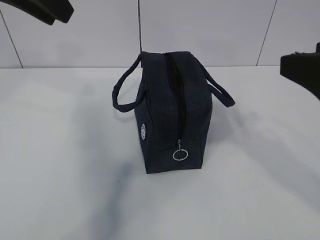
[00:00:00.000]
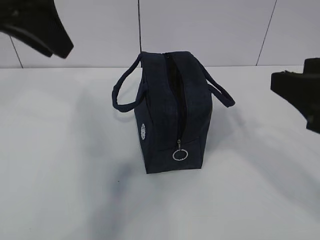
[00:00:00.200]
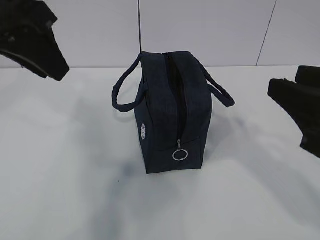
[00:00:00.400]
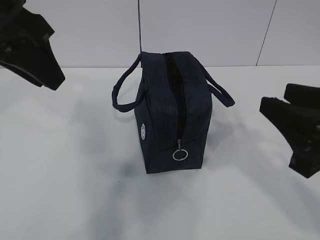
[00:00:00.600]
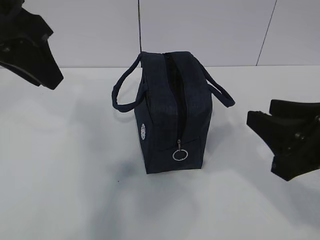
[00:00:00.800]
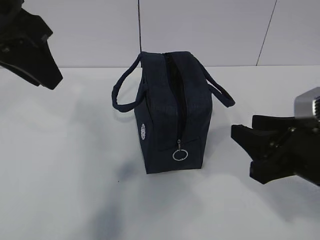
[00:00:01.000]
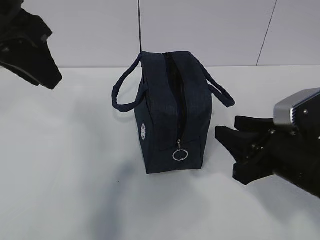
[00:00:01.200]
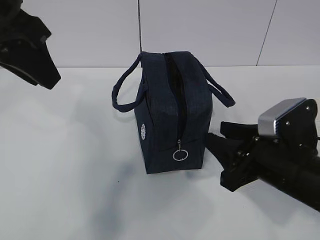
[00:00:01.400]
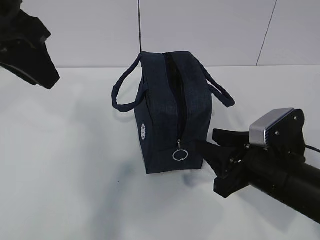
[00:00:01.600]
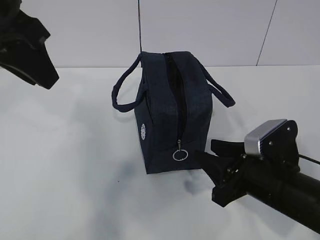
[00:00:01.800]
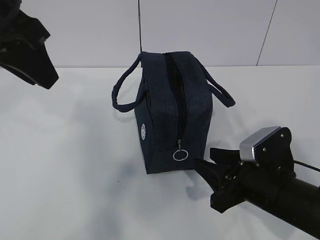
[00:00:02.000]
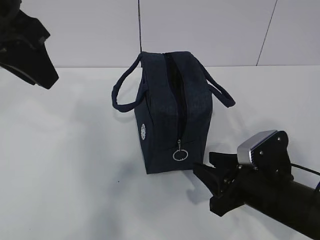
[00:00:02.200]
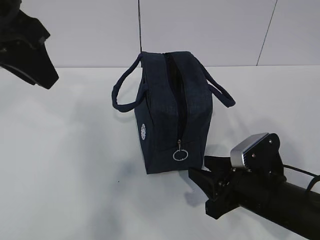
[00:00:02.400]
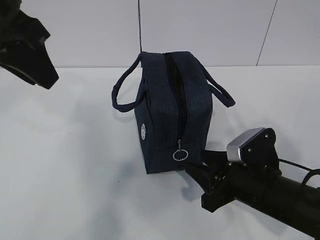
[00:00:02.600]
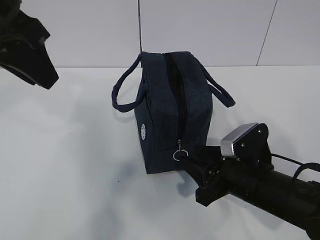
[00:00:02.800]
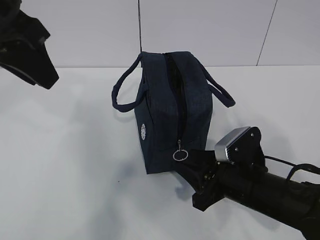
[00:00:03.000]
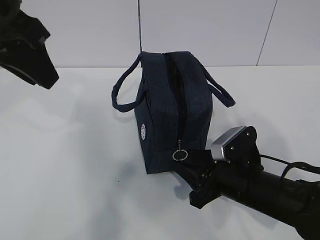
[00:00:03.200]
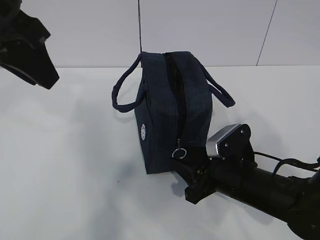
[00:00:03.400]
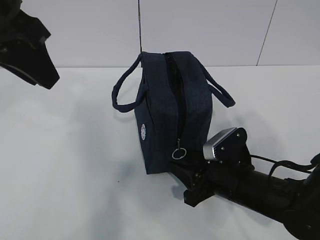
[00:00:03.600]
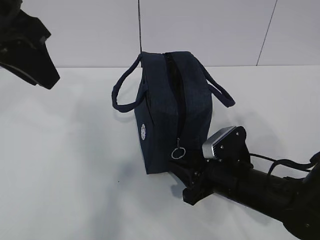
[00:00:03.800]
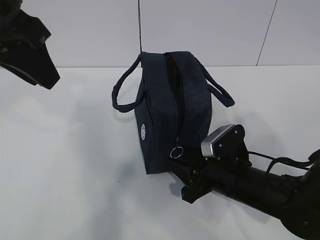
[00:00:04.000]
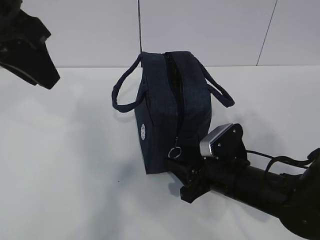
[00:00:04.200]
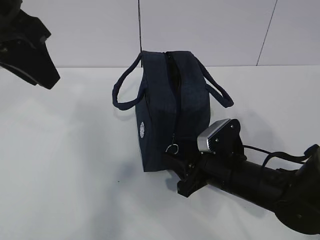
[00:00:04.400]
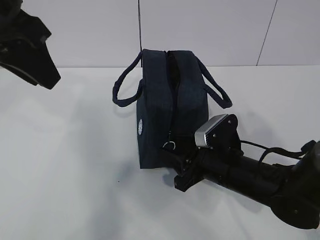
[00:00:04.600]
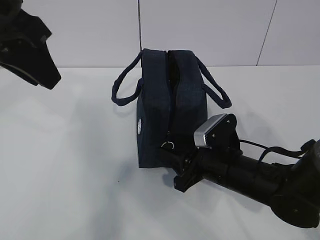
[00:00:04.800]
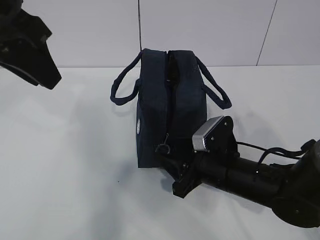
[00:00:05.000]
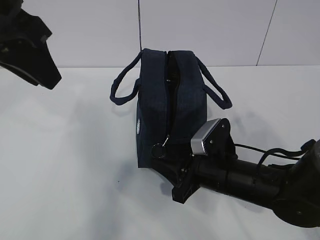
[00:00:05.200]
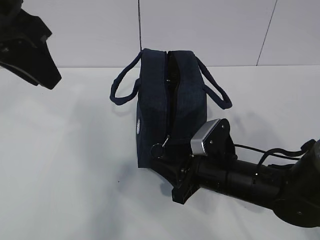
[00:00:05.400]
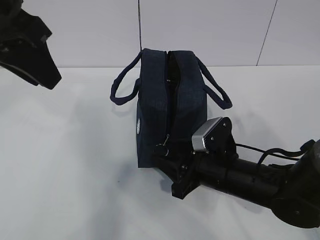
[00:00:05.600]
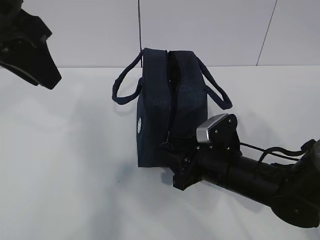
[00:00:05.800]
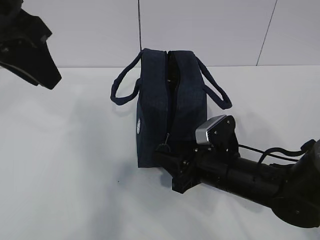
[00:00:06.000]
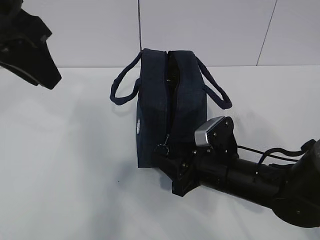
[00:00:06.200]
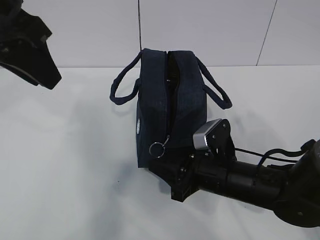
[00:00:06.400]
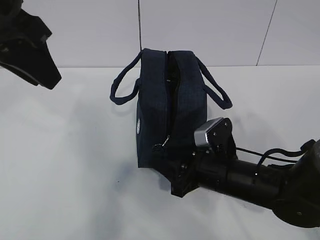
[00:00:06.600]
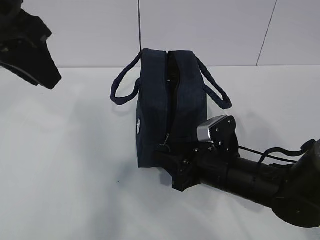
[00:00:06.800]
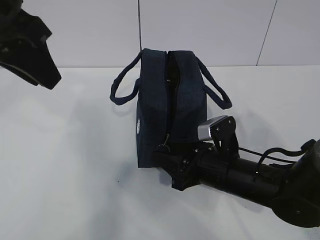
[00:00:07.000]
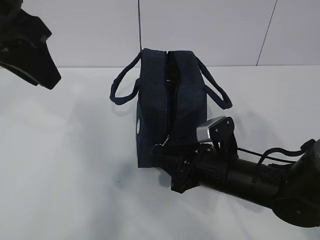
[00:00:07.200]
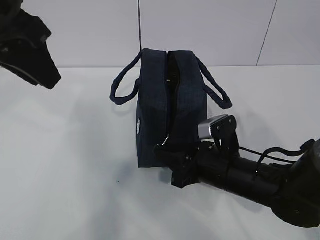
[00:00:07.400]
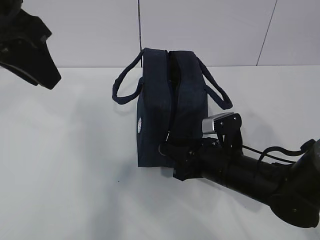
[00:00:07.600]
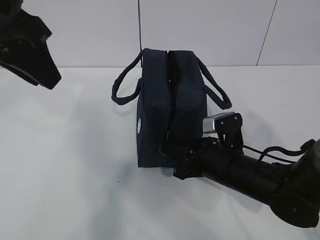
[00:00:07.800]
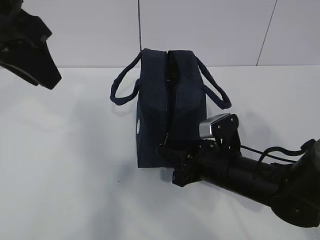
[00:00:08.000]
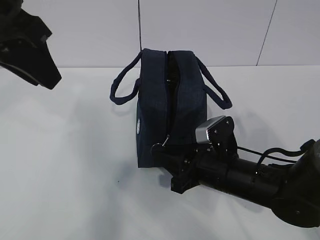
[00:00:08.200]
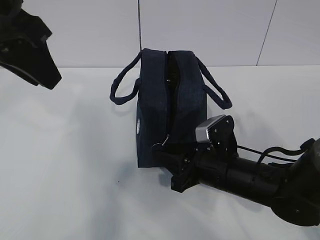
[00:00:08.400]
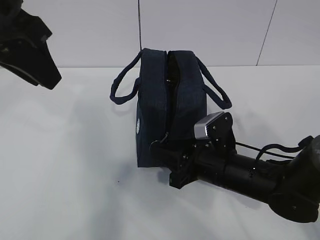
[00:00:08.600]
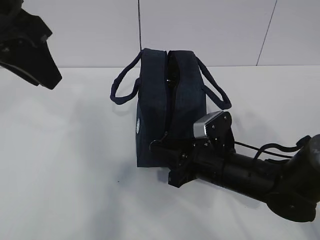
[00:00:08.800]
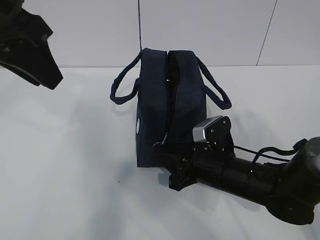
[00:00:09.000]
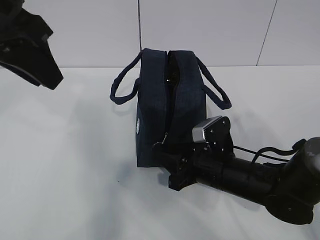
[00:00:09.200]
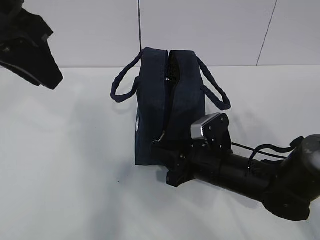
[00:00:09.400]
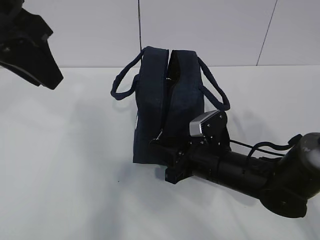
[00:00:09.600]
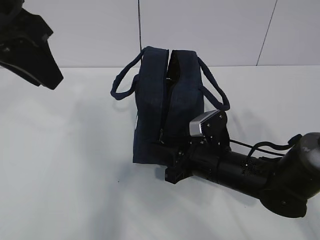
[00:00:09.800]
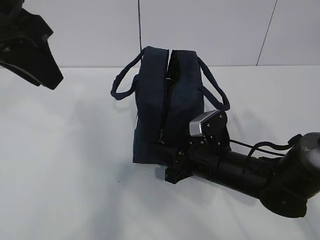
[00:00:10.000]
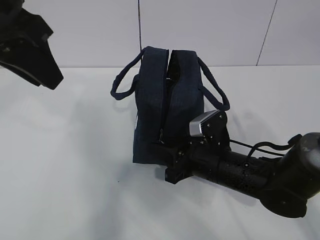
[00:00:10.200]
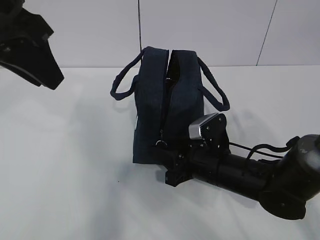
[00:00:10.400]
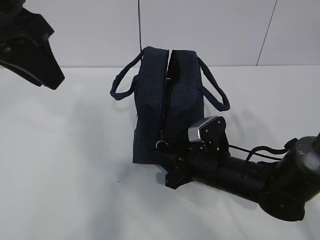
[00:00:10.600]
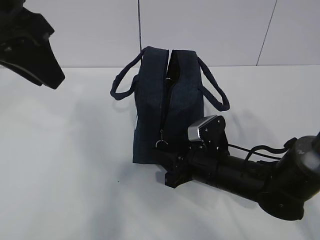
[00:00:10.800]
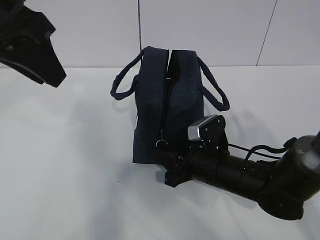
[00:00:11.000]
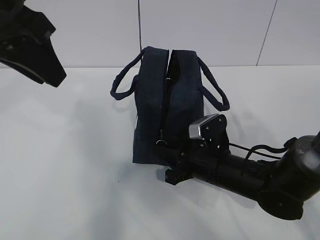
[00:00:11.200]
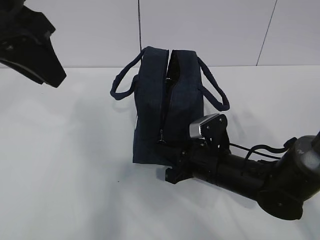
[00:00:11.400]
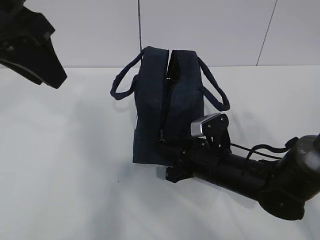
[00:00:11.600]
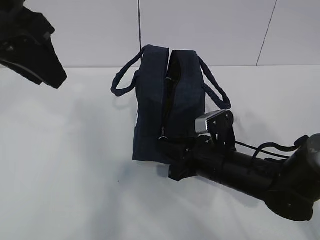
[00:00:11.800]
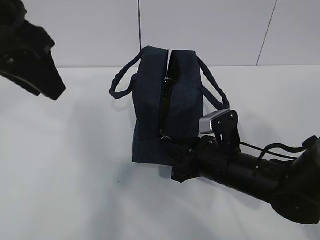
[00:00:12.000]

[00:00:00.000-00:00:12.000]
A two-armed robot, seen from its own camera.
00:00:00.000 to 00:00:01.600: The left gripper goes approximately 5 cm downward, while the right gripper is displaced downward by approximately 20 cm.
00:00:01.600 to 00:00:03.000: The right gripper moves downward, approximately 5 cm.
00:00:03.000 to 00:00:09.000: There are only small adjustments of the grippers.
00:00:09.000 to 00:00:10.400: Neither gripper changes place.
00:00:10.400 to 00:00:12.000: The right gripper closes.

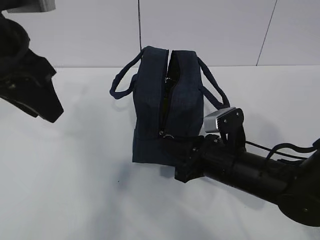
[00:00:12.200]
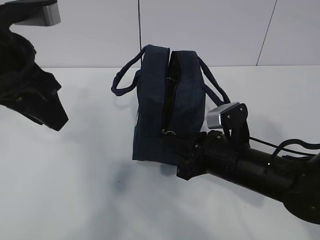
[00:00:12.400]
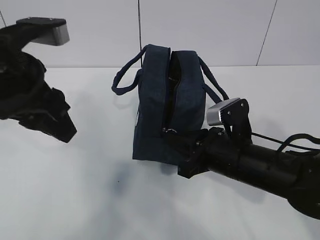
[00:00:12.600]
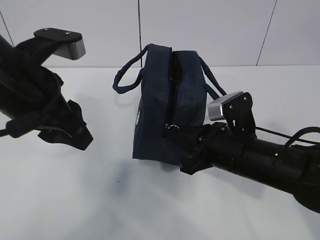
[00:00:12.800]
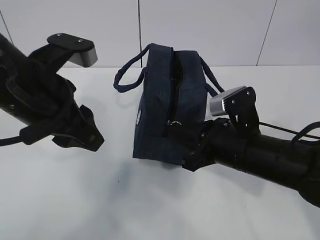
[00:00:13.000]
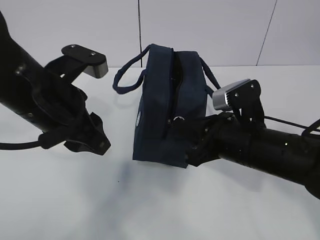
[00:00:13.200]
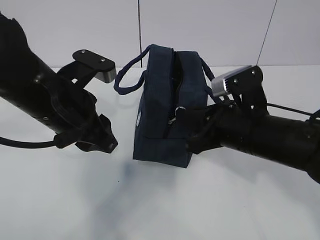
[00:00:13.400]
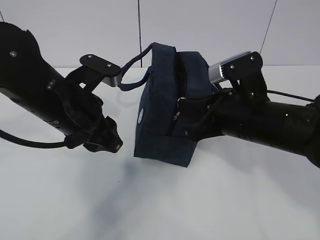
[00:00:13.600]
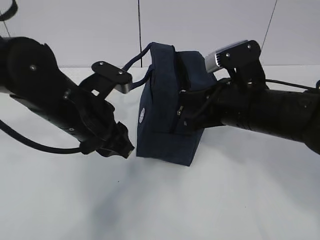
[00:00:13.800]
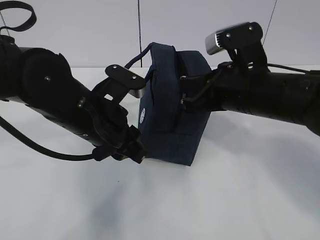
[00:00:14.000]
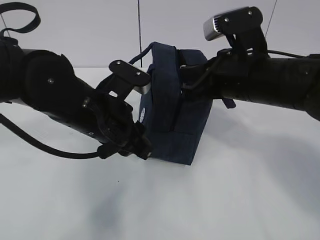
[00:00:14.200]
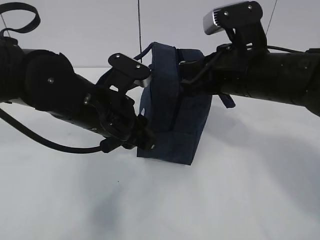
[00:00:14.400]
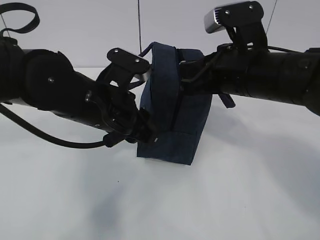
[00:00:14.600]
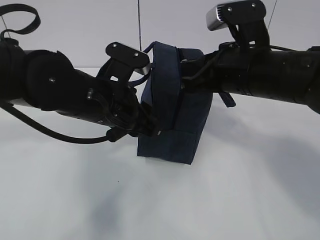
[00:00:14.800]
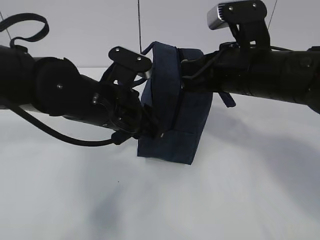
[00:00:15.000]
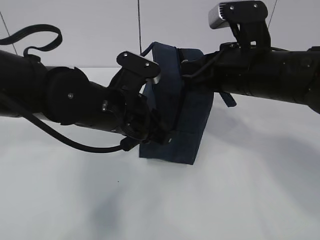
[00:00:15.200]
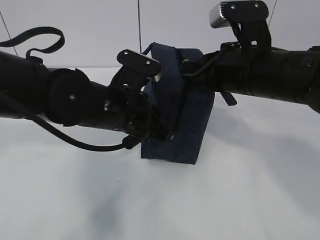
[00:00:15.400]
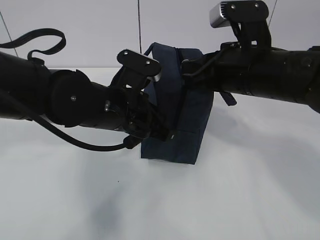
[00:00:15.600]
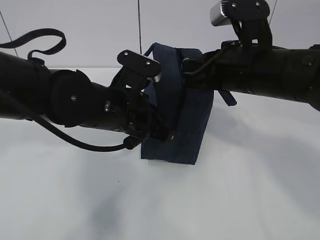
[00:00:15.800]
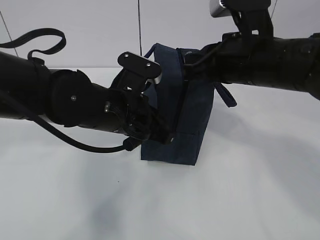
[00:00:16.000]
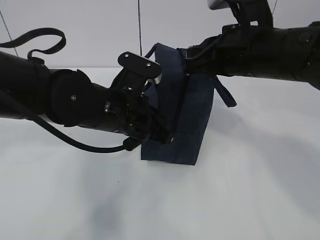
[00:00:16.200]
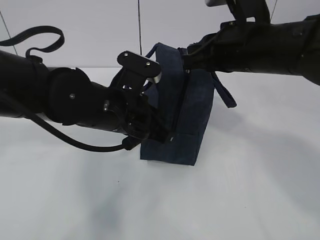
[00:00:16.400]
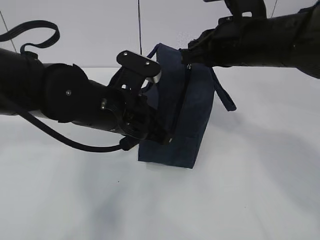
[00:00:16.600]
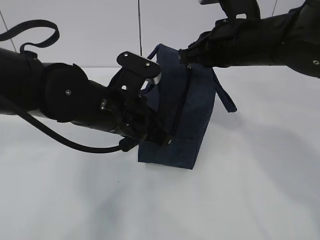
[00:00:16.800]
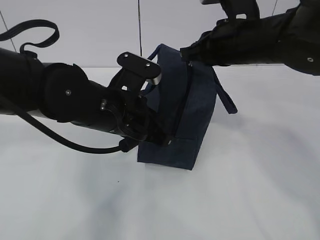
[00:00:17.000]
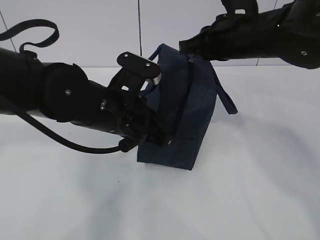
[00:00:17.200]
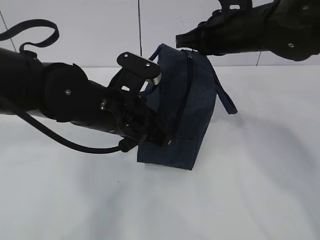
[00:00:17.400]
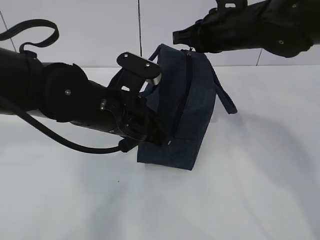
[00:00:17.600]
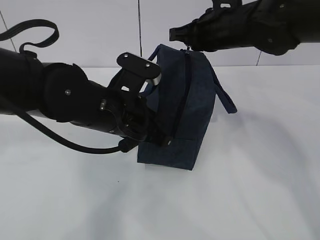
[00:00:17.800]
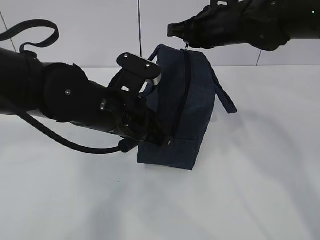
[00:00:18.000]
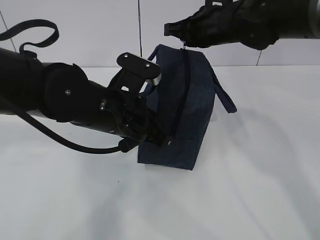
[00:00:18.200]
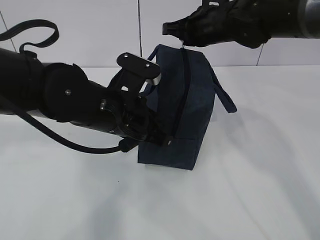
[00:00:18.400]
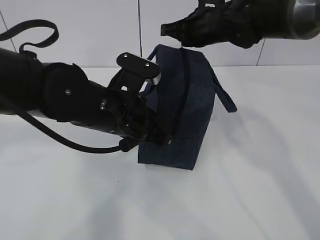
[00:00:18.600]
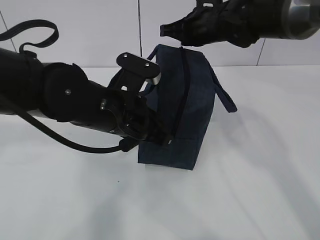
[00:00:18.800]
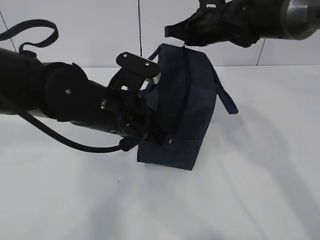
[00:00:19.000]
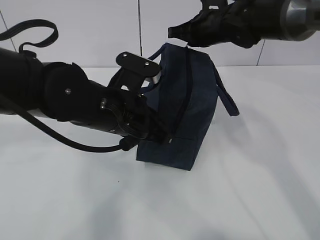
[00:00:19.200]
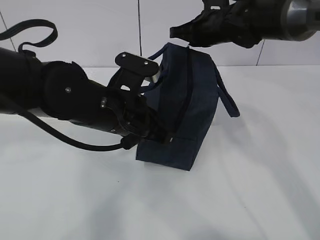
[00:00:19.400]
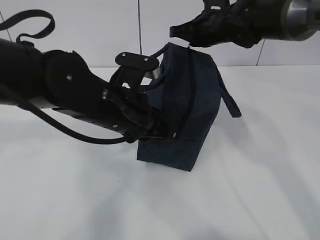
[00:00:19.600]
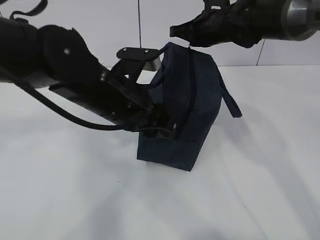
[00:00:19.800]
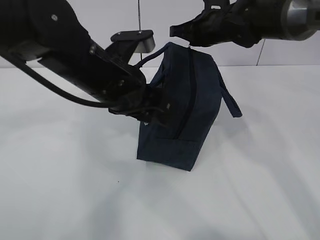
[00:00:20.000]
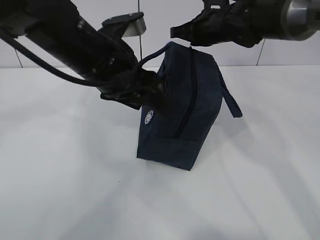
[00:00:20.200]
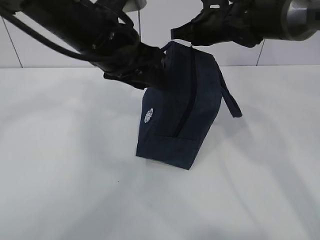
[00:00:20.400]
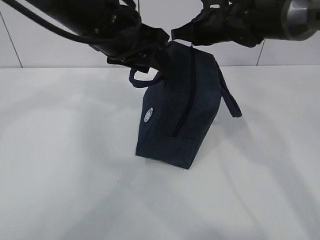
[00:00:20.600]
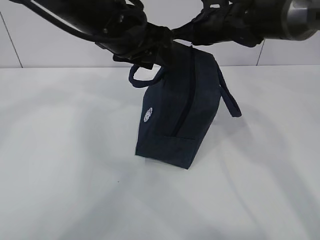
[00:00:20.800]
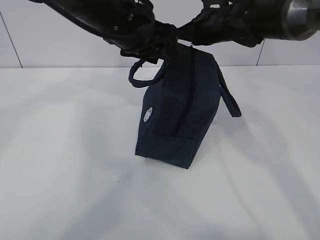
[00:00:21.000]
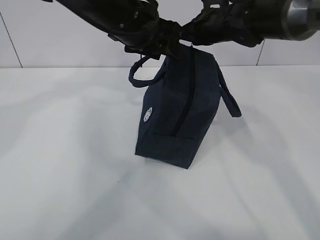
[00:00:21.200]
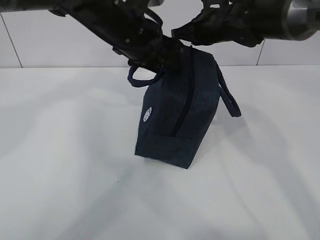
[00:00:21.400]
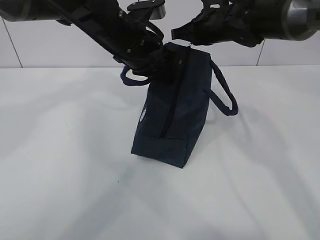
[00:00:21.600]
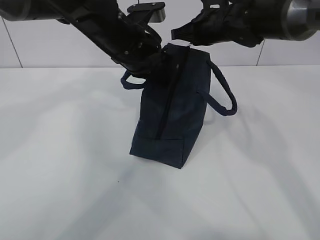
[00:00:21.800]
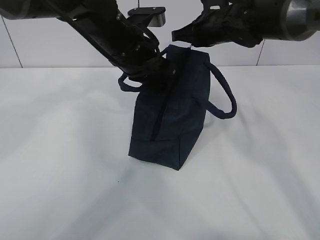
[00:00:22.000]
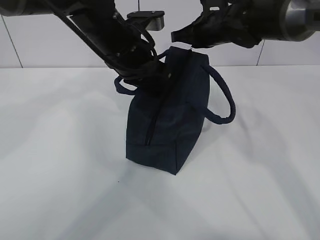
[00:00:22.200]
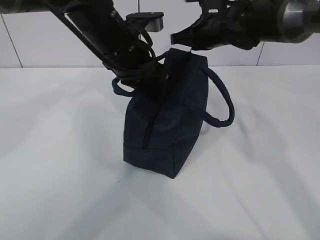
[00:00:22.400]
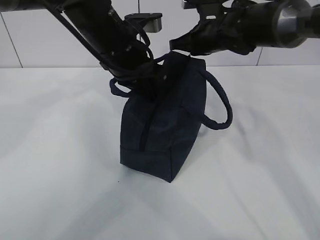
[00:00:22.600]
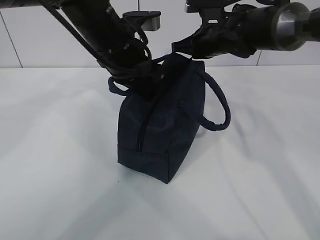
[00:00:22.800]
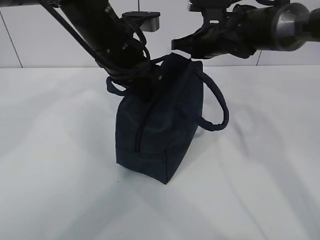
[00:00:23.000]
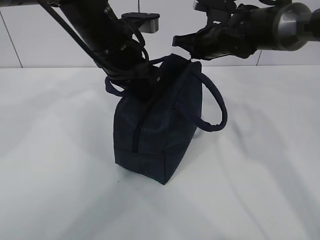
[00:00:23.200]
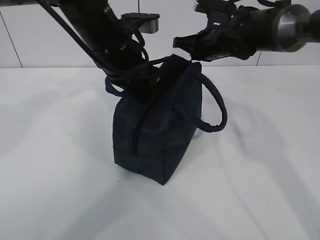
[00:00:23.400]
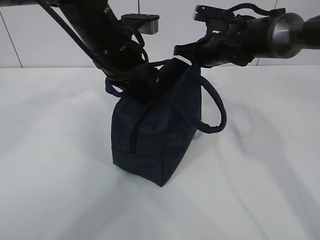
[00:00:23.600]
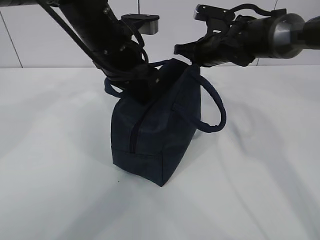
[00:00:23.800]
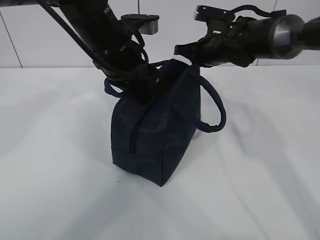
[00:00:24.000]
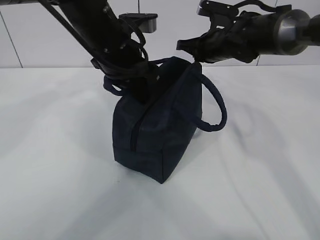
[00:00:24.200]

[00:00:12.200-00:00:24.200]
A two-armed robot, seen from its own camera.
Step, 00:00:12.200 to 00:00:16.600: Pull the zipper with your right hand.
00:00:12.200 to 00:00:13.800: The left gripper is displaced downward and to the right by about 15 cm, while the right gripper travels upward by about 10 cm.
00:00:13.800 to 00:00:15.200: The right gripper moves about 5 cm.
00:00:15.200 to 00:00:16.600: The left gripper closes its fingers.
00:00:16.600 to 00:00:18.200: The right gripper shifts some 10 cm forward.
00:00:18.200 to 00:00:19.800: The right gripper shifts by some 5 cm. The left gripper opens.
00:00:19.800 to 00:00:21.200: The left gripper goes about 10 cm forward and upward.
00:00:21.200 to 00:00:22.600: The left gripper closes its fingers.
00:00:22.600 to 00:00:24.200: The grippers move only a little.
